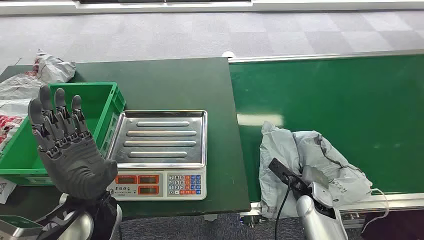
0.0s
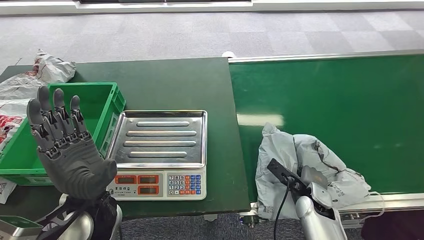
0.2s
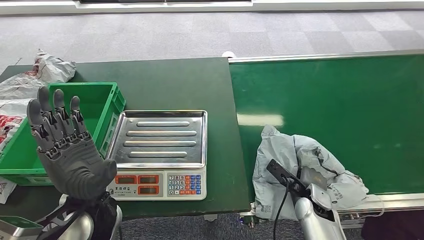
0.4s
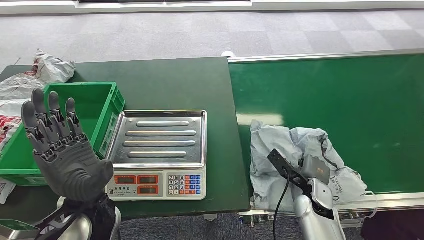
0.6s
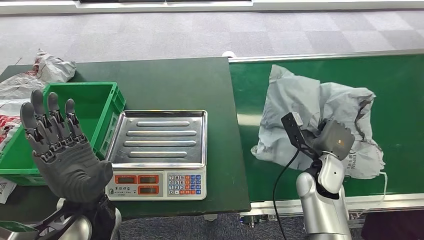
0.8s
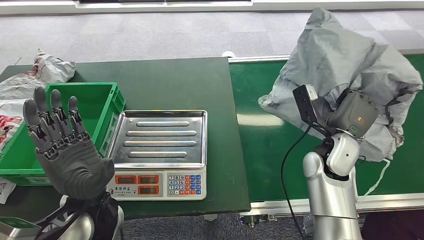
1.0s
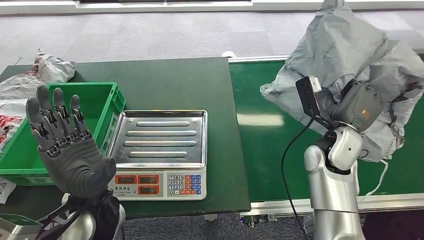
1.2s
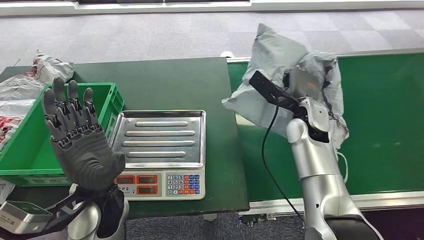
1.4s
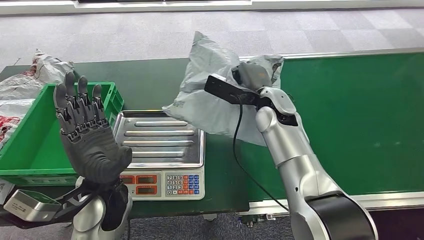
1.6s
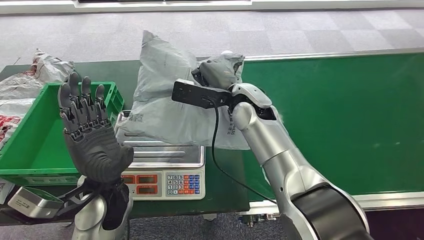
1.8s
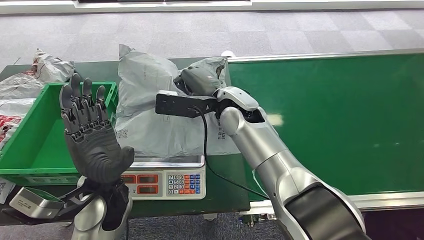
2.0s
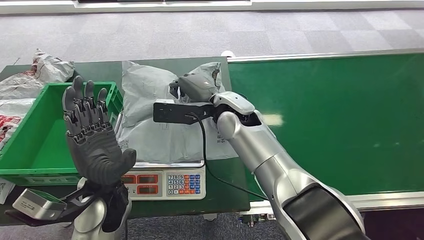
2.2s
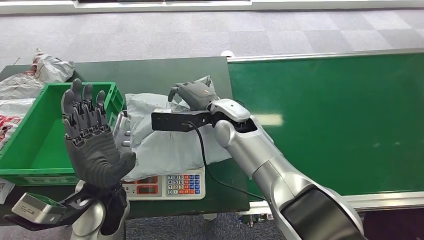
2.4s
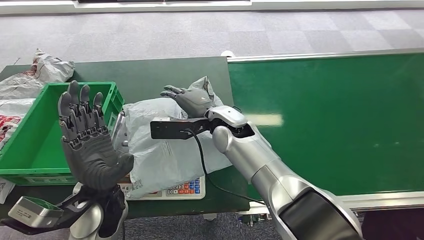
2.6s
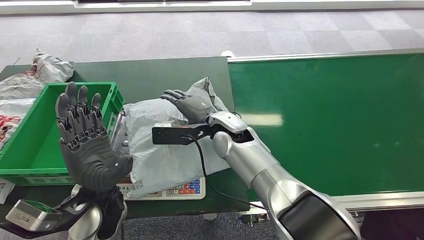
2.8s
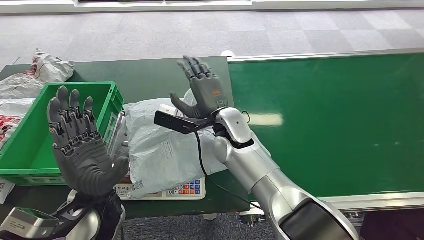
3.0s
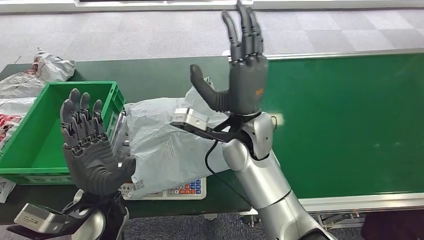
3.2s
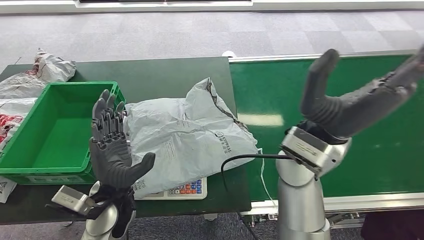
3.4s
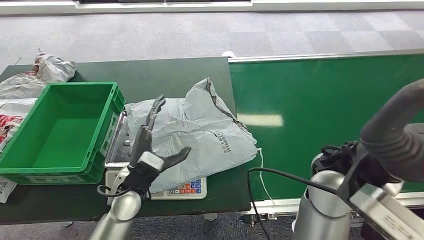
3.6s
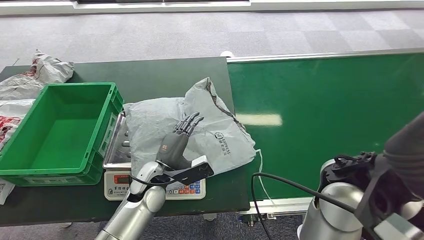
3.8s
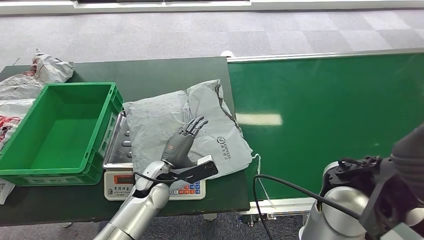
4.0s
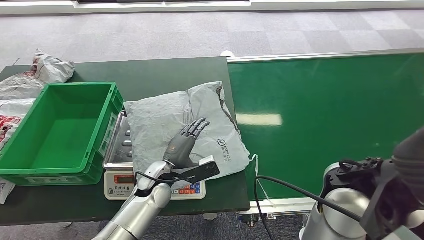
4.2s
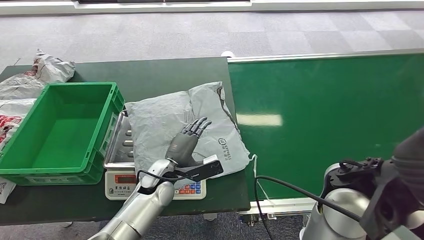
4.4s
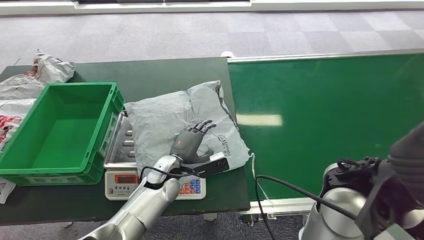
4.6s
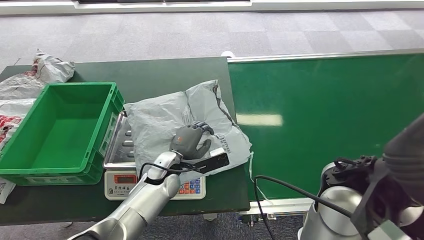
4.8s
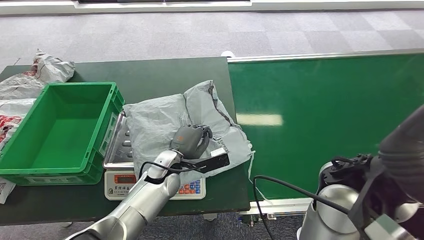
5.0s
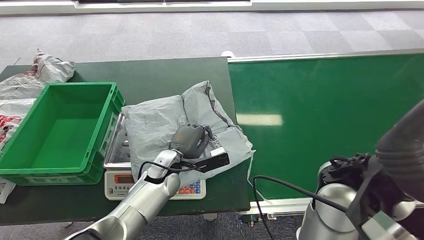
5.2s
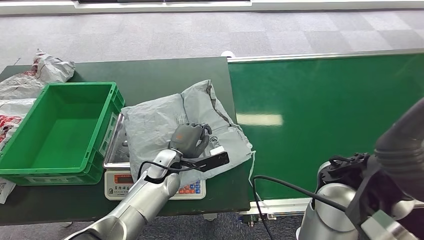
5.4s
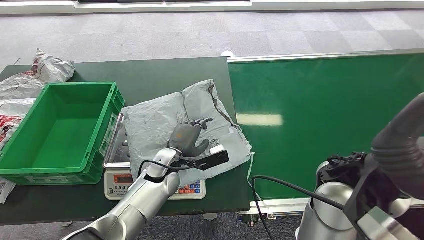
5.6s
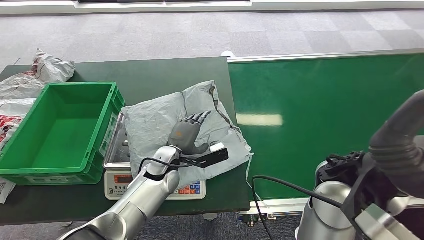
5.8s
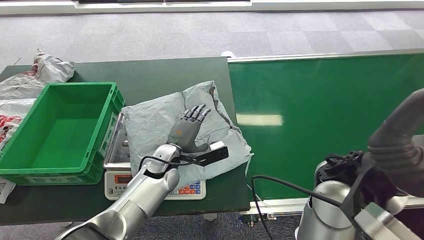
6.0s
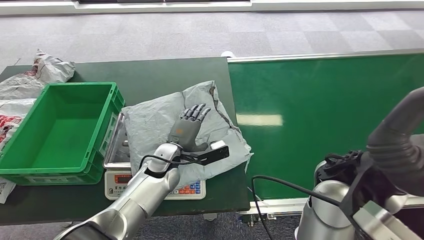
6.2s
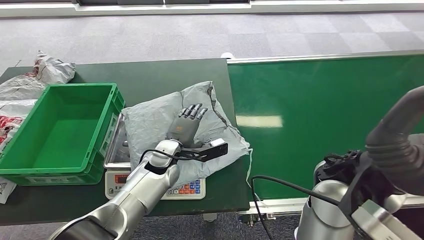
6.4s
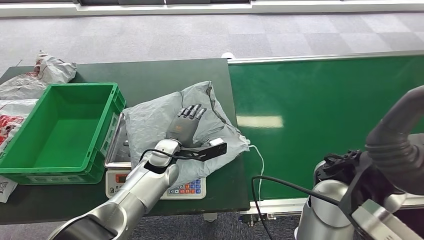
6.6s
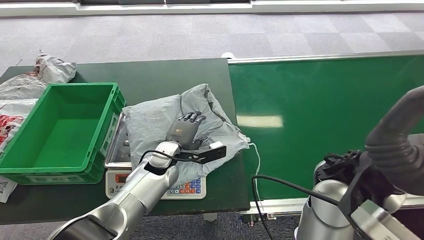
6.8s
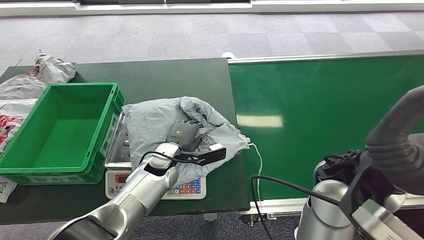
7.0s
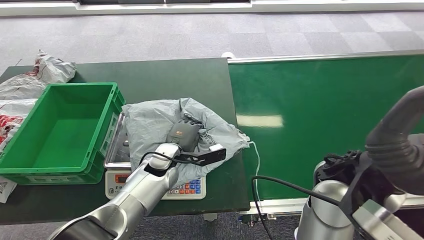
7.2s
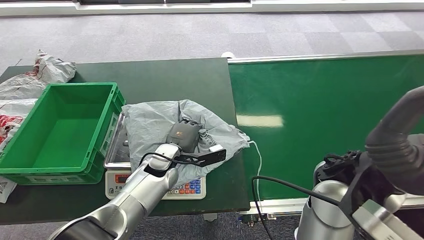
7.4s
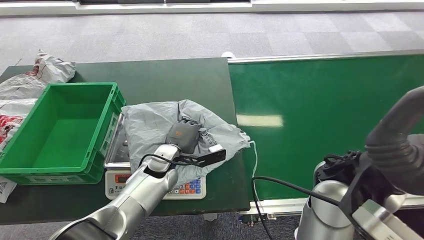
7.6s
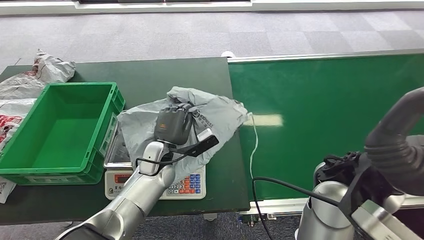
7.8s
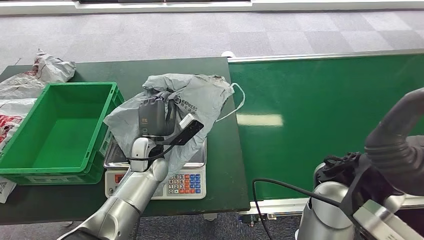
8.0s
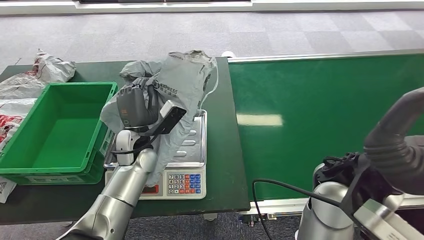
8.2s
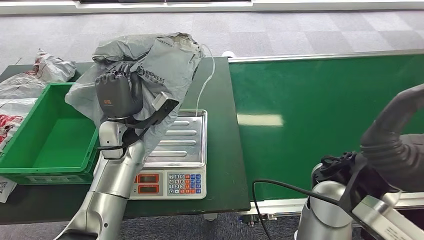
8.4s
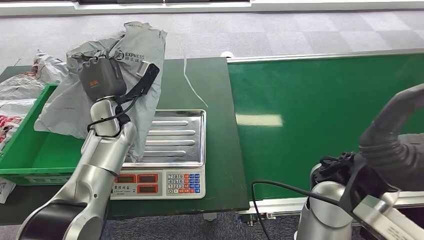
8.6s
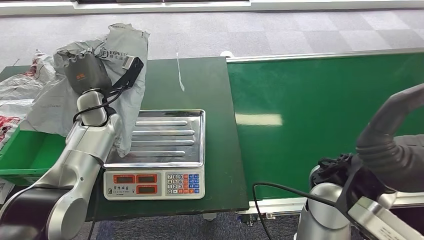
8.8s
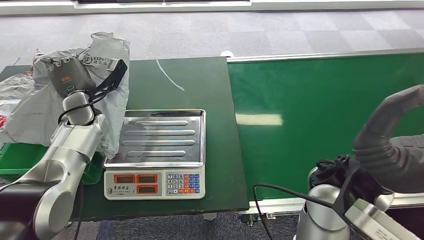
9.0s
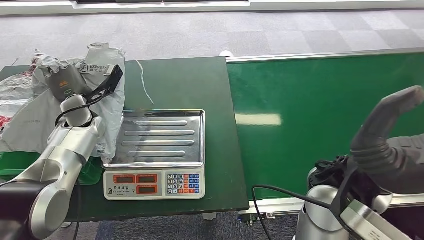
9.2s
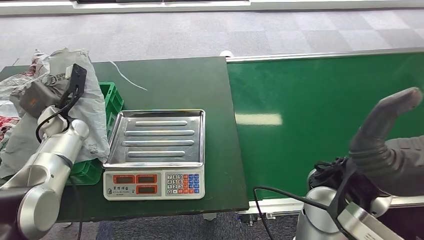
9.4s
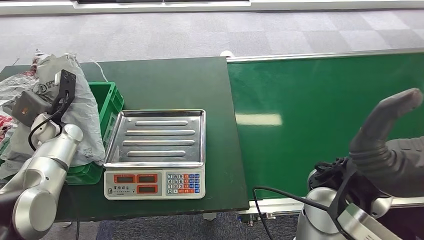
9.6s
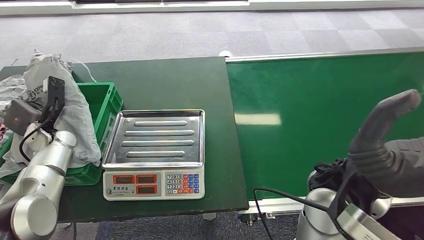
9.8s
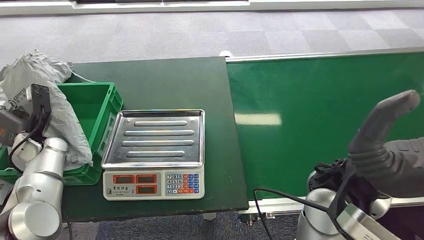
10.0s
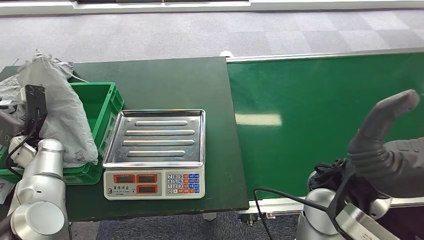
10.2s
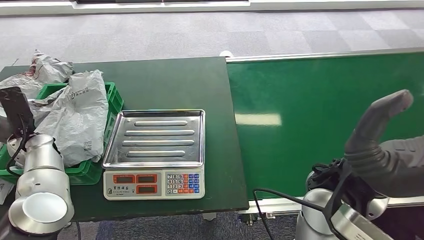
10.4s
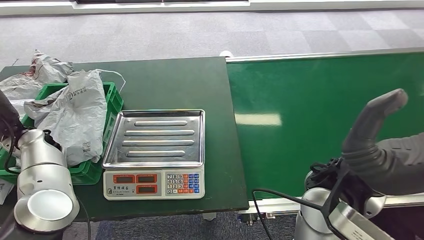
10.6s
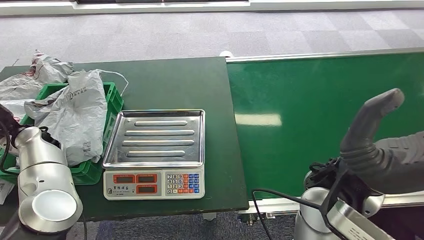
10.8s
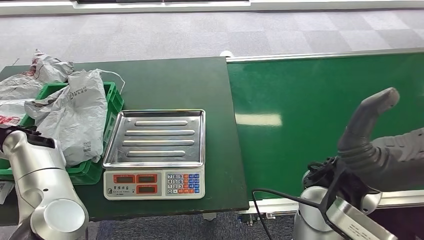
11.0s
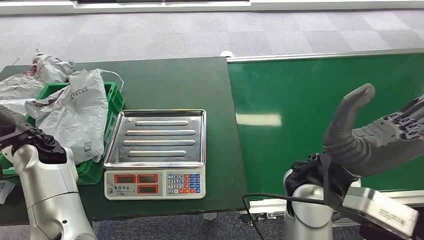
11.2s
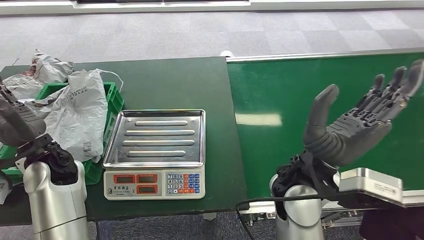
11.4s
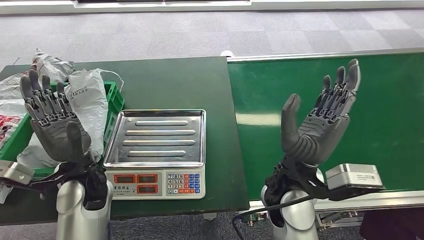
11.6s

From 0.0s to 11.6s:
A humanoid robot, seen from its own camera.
Step, from 0.0s to 2.0s: Pick up the package from the conveyor belt.
Step, from 2.2s to 4.2s: Place the package onto the inbound machine.
Step, from 7.0s to 9.0s: Pick up the package from the inbound machine.
Step, from 9.4s to 11.6s: Place the package into the parcel locker.
From 4.4s to 5.8s: The hands stay close to where they were, moving slightly.
From 5.8s to 7.2s: The hands stay close to where they were, moving slightly.
